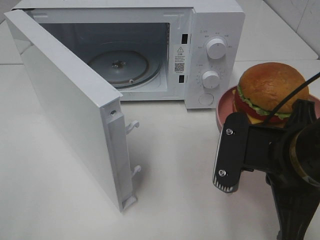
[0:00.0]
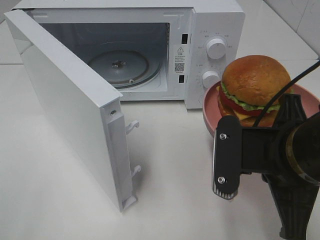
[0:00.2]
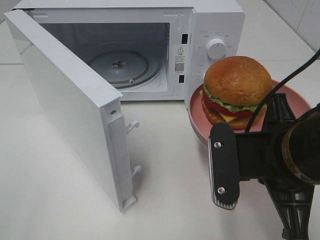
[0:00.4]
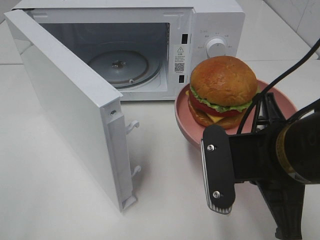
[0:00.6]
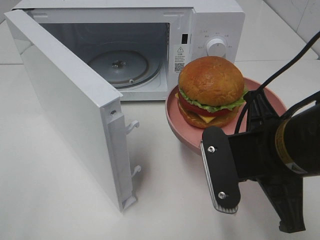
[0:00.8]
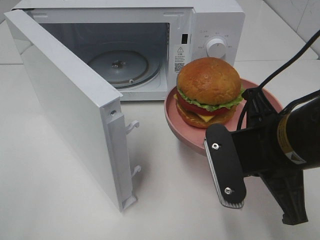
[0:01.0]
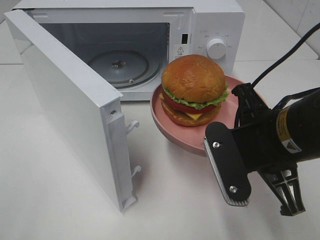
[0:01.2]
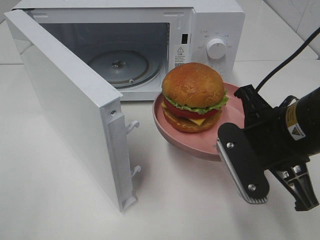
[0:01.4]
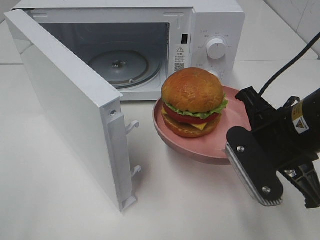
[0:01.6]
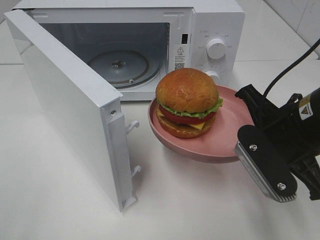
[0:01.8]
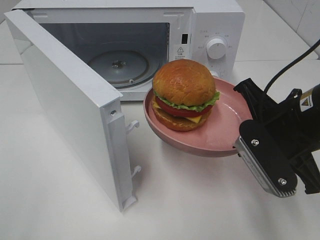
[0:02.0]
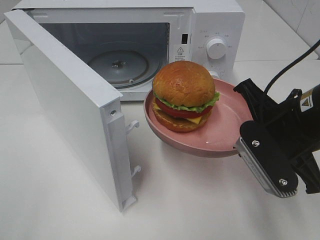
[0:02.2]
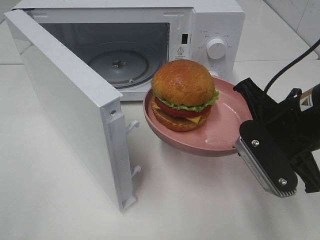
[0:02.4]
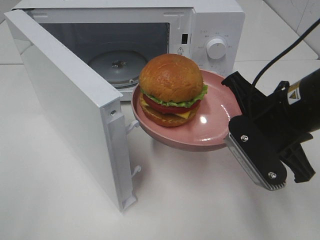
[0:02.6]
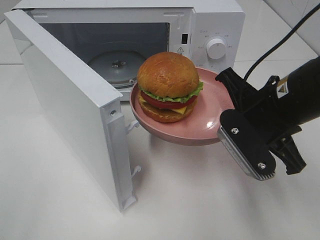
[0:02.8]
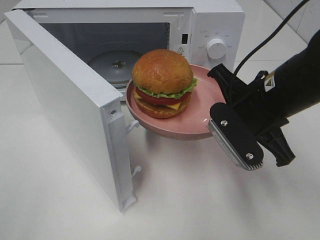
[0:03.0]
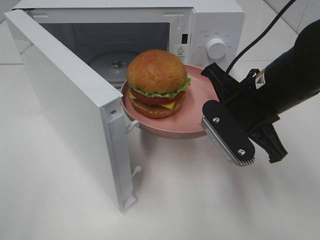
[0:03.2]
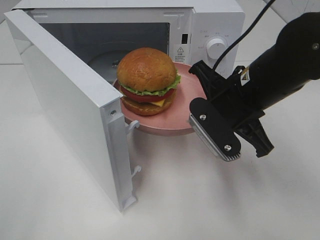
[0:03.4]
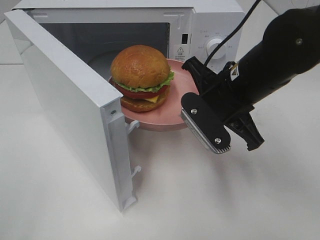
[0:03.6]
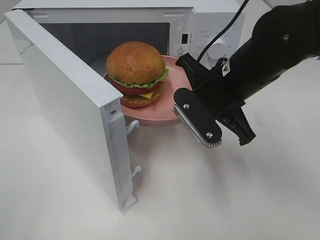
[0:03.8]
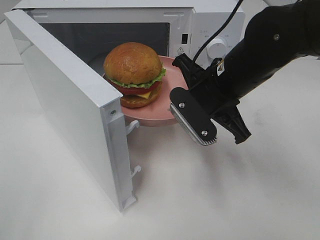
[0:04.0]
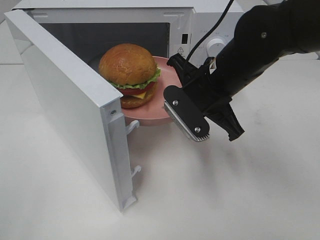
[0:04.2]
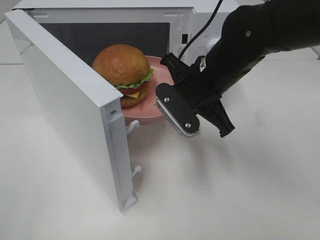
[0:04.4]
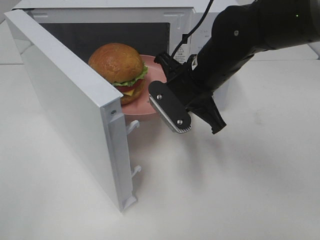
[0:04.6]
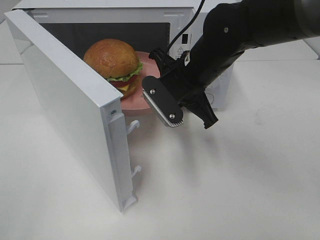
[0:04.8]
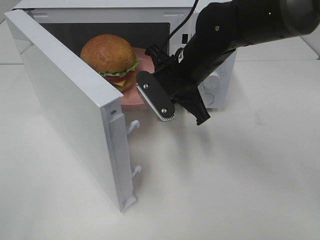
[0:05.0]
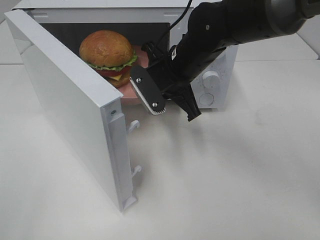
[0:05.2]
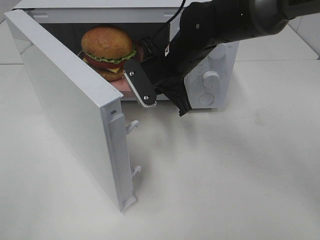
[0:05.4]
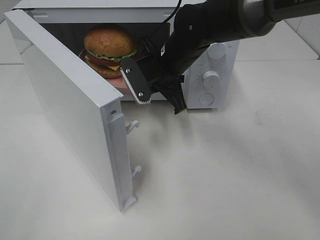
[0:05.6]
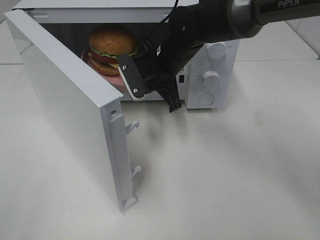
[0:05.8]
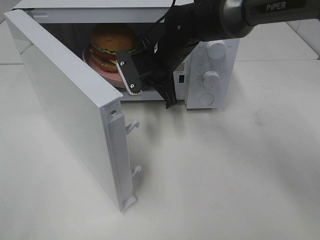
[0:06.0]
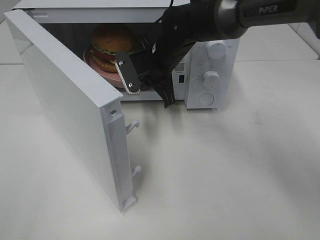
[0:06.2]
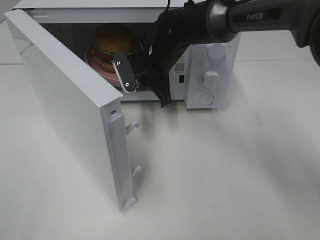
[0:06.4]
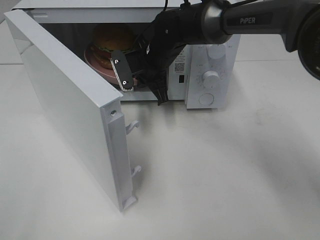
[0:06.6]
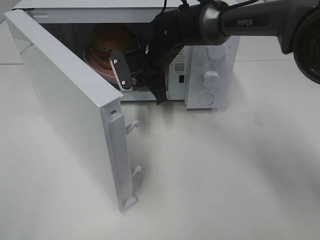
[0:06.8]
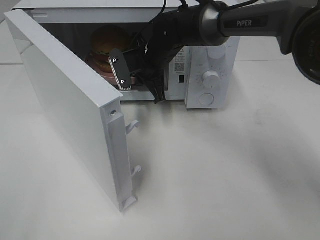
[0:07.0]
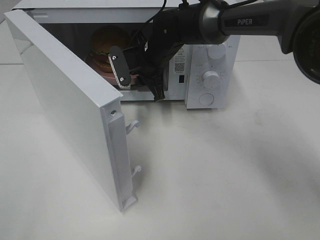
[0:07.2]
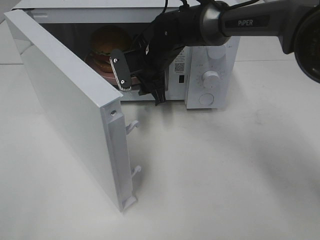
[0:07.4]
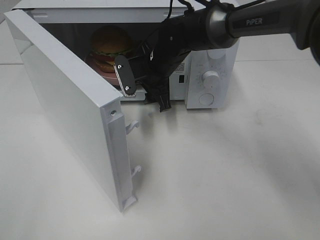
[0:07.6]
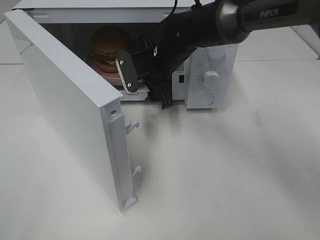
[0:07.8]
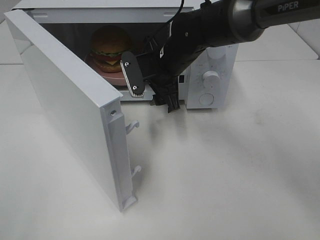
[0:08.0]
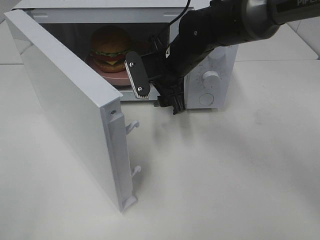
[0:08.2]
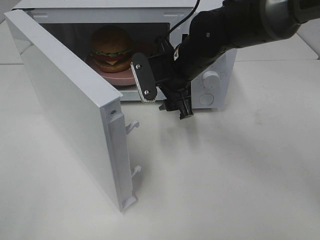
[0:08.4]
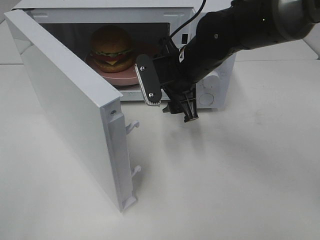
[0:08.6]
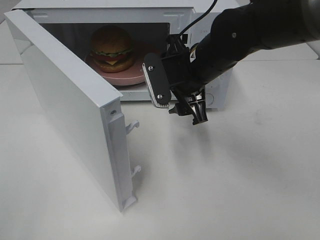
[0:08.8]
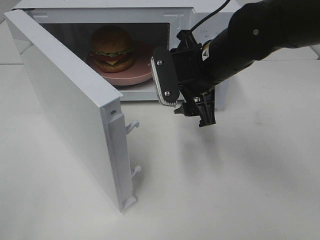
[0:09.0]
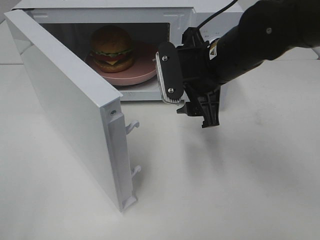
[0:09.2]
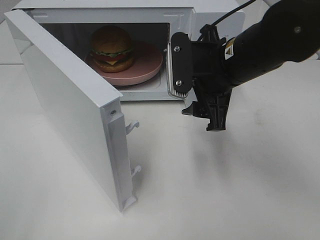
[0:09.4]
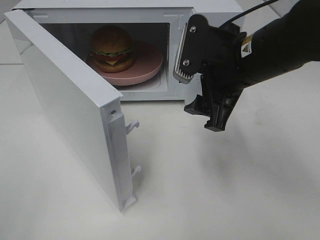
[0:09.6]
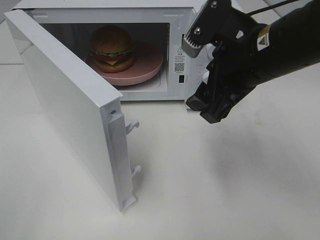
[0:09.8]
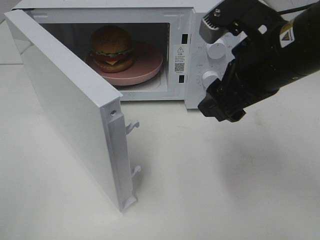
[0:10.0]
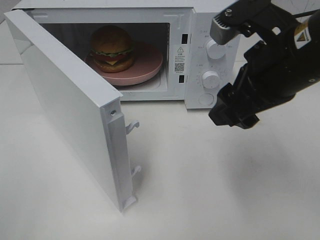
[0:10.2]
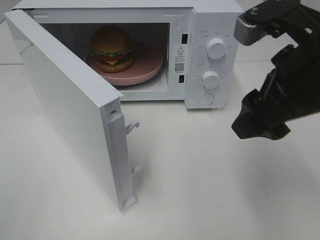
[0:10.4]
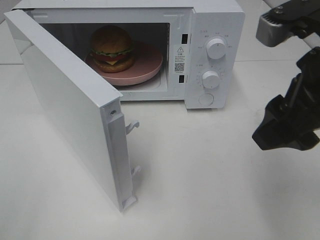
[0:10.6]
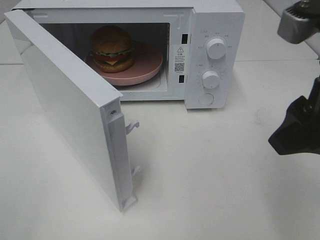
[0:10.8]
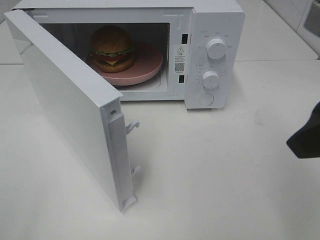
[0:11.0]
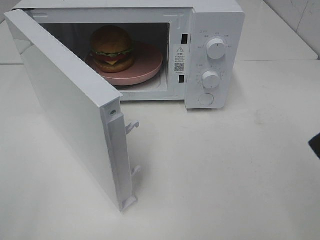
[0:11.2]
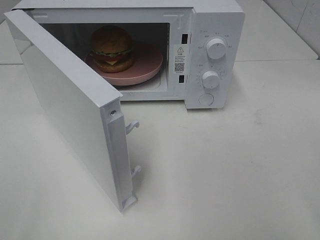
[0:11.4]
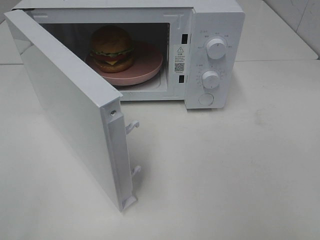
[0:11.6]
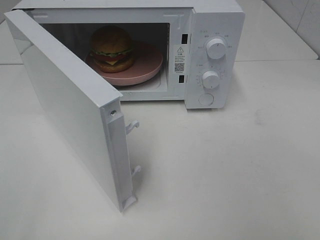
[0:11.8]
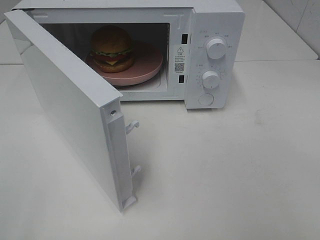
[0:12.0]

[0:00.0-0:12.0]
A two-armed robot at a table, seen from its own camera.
Task of the whole recording: Heat the burger.
Step, 0:00.0 to 0:07.2: Right hand: place the plate in the microwave.
0:00.0 to 0:01.6: The right gripper heads forward, covering about 5 cm.
0:01.6 to 0:03.0: The right gripper is displaced forward by roughly 5 cm.
0:03.0 to 0:04.4: The right gripper goes roughly 10 cm forward and to the left.
0:04.4 to 0:06.0: The right gripper is displaced forward and to the left by some 10 cm.
0:06.0 to 0:07.6: The right gripper opens.
0:07.6 to 0:09.0: The right gripper is displaced backward, to the right and upward by approximately 15 cm.
0:09.0 to 0:10.4: The right gripper goes approximately 15 cm backward, upward and to the right.
0:10.4 to 0:12.0: The right gripper moves backward and to the right, about 20 cm.

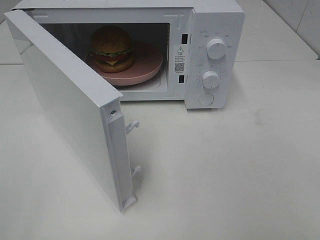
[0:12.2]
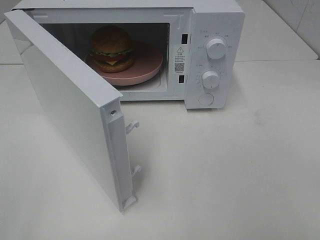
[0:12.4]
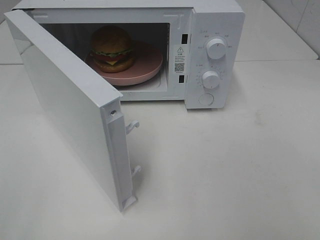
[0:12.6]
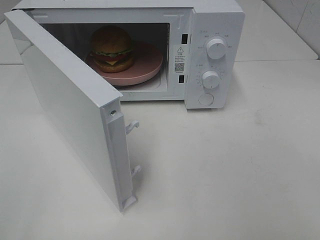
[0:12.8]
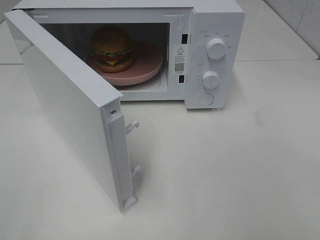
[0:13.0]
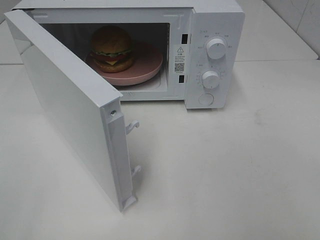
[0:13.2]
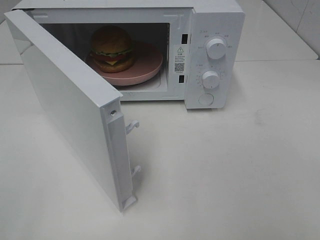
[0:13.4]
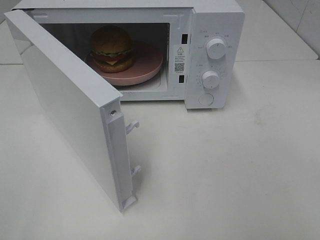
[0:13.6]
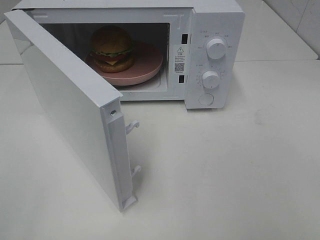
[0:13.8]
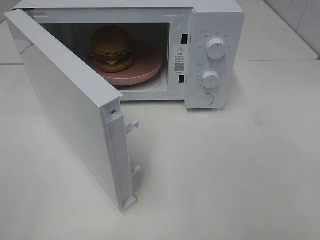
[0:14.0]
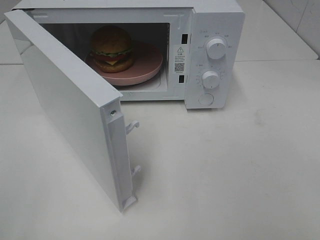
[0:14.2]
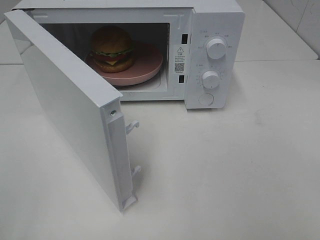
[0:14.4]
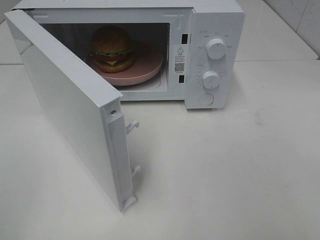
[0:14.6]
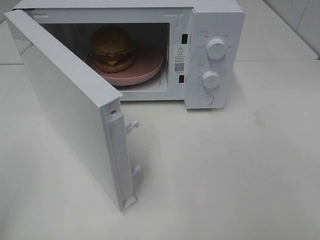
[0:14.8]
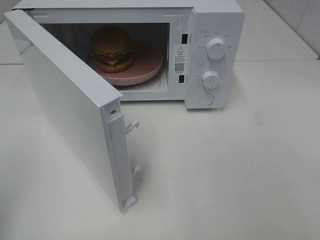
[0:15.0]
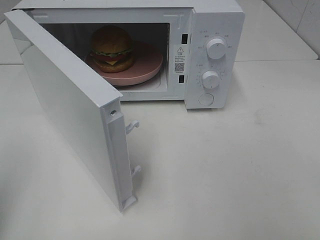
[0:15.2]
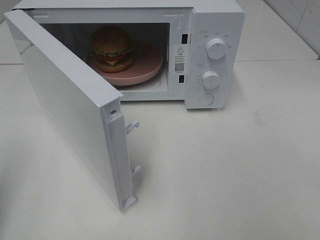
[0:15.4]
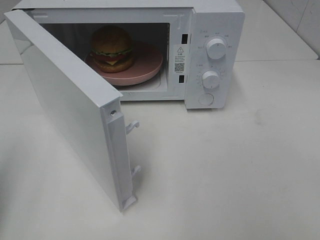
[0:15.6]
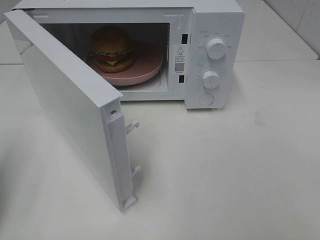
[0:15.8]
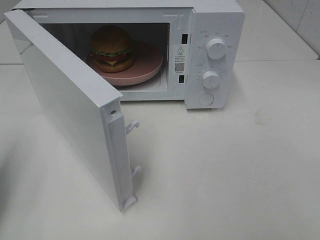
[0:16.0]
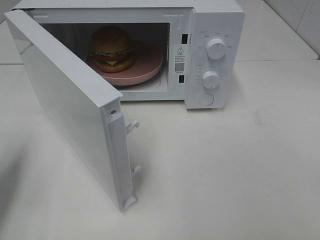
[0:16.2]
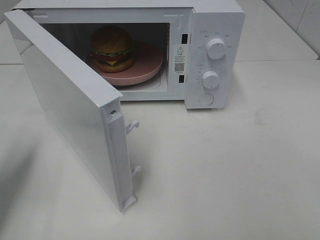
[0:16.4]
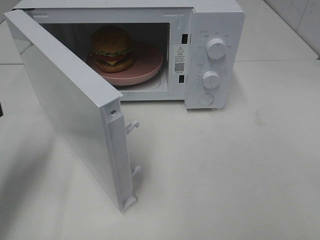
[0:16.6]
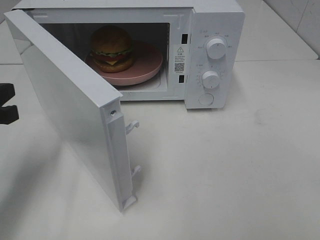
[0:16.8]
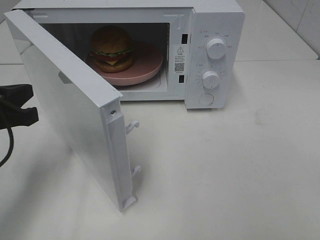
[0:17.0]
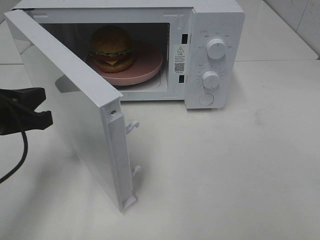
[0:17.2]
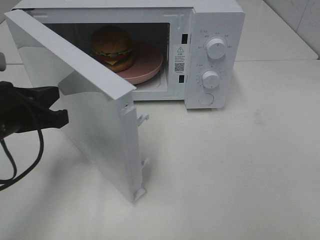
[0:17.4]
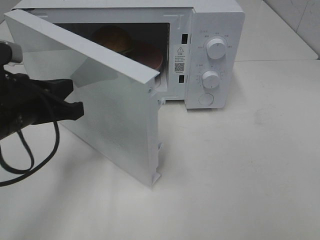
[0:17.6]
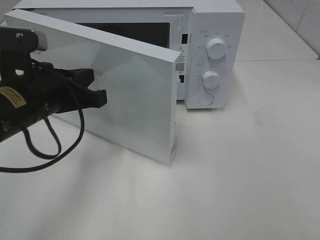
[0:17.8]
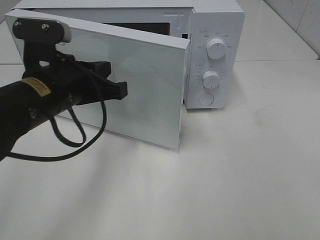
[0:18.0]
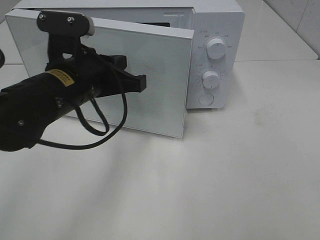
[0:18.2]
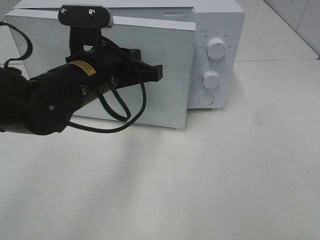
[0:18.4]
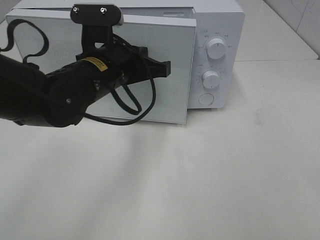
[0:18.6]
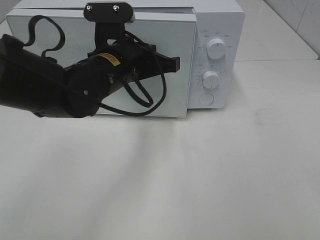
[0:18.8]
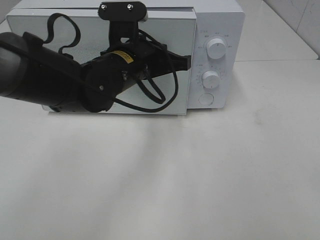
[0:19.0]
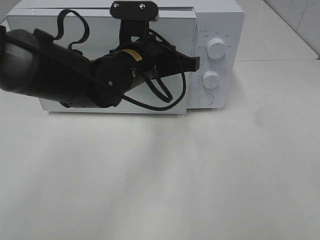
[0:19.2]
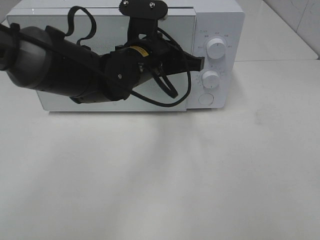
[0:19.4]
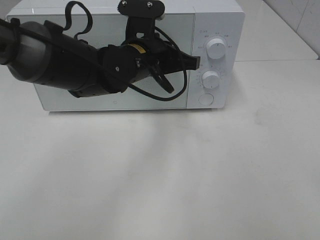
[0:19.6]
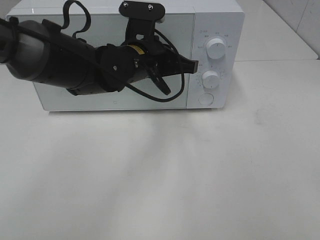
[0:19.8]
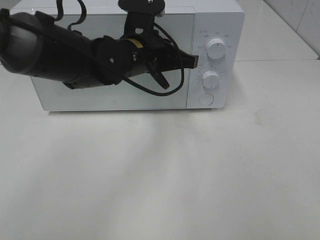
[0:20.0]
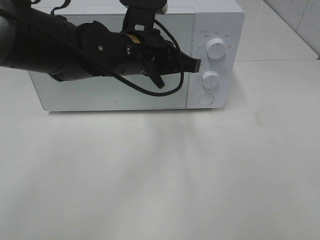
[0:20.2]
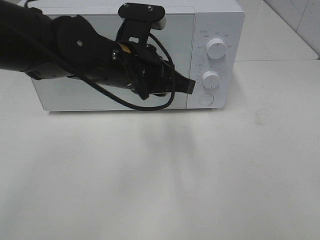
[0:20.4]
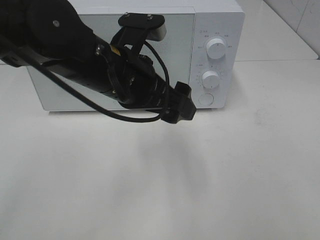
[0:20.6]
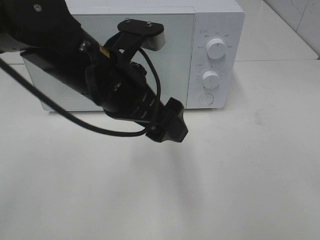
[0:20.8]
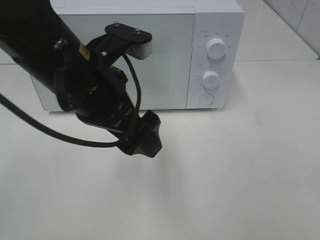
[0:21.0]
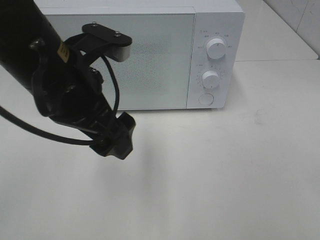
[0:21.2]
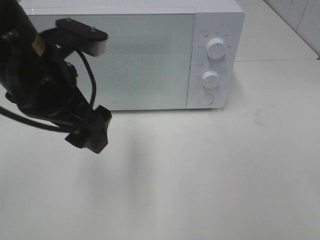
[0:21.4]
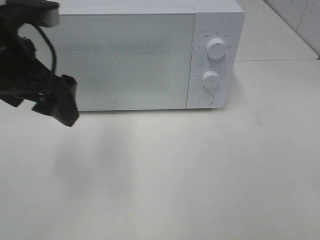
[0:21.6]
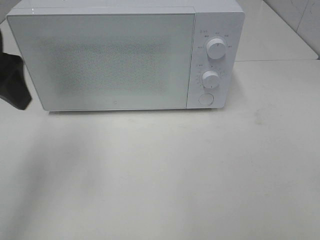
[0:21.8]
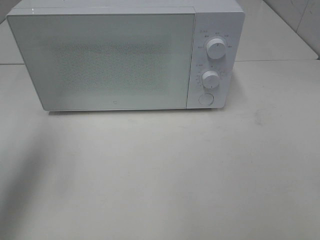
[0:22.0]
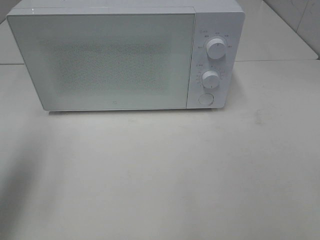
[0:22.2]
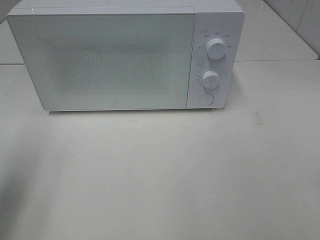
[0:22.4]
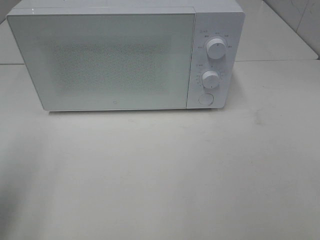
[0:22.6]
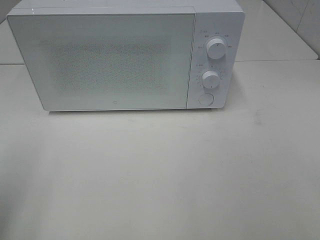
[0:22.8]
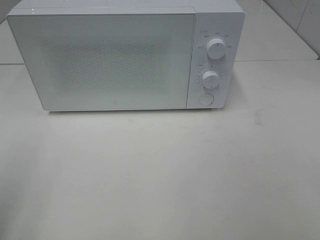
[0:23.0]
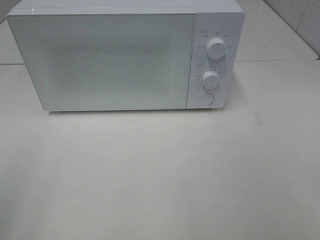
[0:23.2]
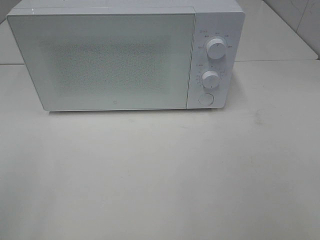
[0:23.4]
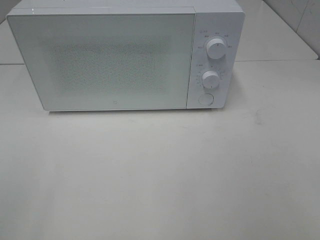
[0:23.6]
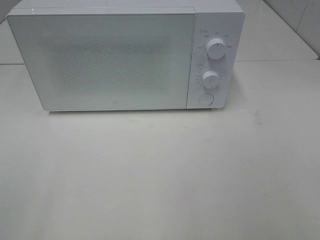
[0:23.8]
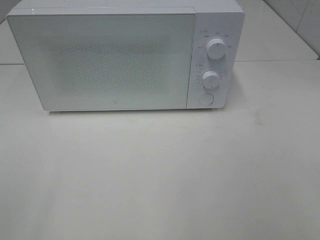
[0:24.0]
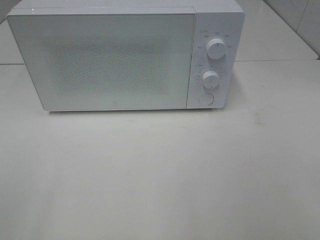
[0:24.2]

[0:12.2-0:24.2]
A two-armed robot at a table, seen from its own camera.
Task of the whole recording: Heat the burger.
Step, 0:12.2 to 0:20.0: Left hand: close the microwave door.
0:12.2 to 0:13.8: The two grippers keep their place.
0:15.2 to 0:16.6: The left gripper is displaced forward and downward by roughly 15 cm.
0:16.6 to 0:18.2: The left gripper moves to the right, some 20 cm.
0:18.2 to 0:19.8: The left gripper heads forward and to the right, covering roughly 10 cm.
0:19.8 to 0:21.2: The left gripper heads backward, to the left and upward, covering about 15 cm, and opens its fingers.
0:21.2 to 0:22.6: The left gripper goes some 20 cm to the left and backward.
0:22.6 to 0:24.2: The left gripper goes about 15 cm backward.
